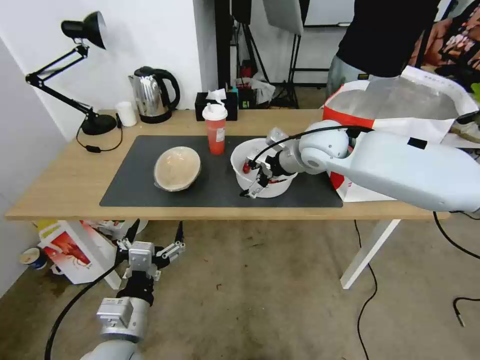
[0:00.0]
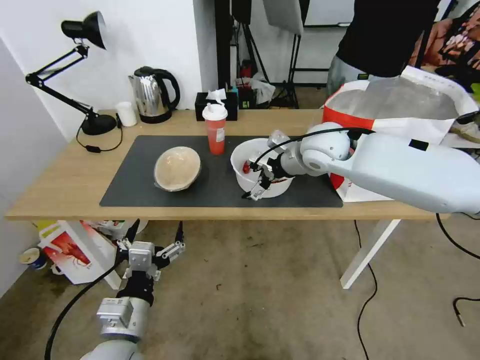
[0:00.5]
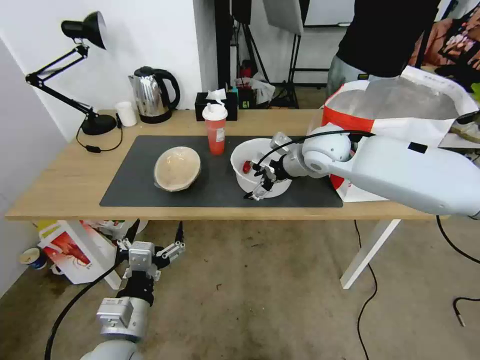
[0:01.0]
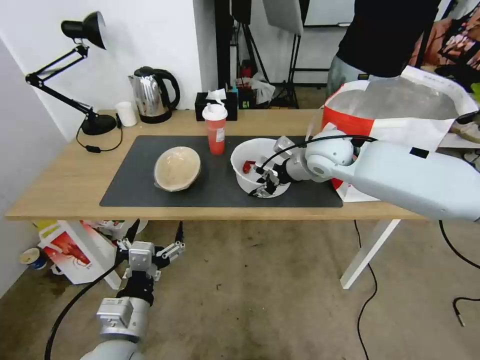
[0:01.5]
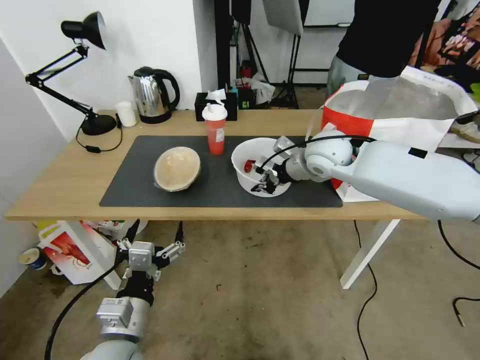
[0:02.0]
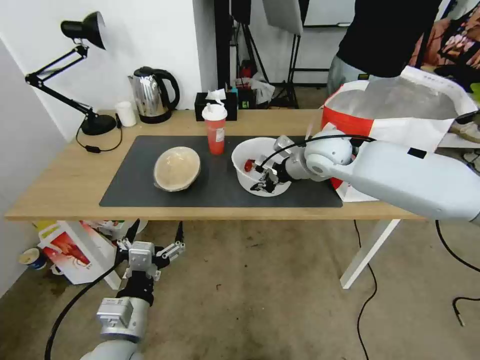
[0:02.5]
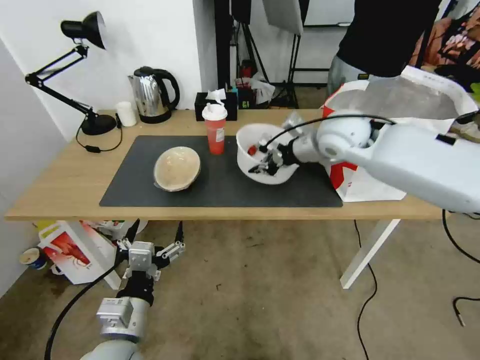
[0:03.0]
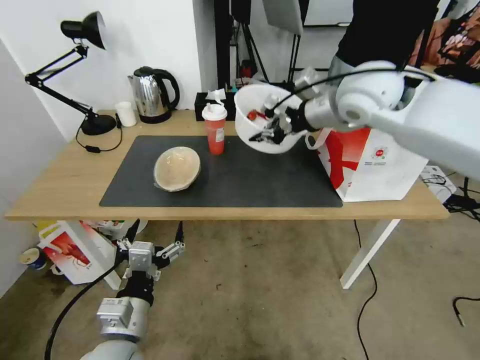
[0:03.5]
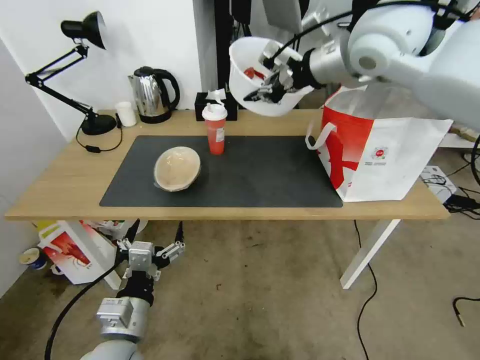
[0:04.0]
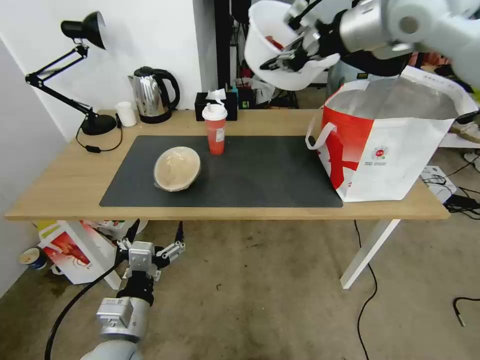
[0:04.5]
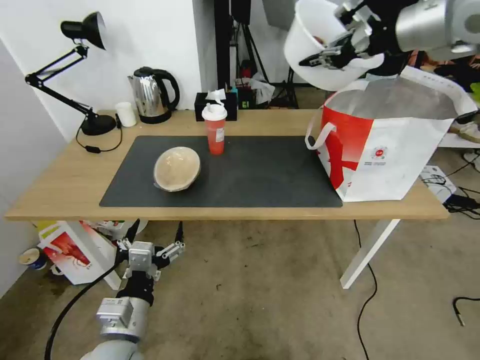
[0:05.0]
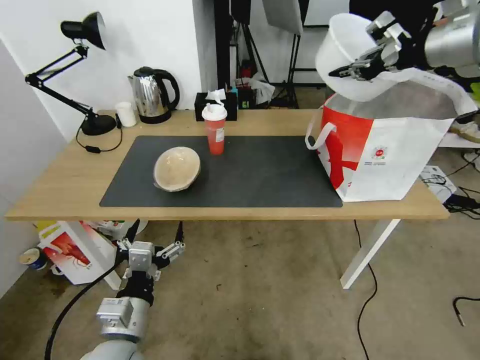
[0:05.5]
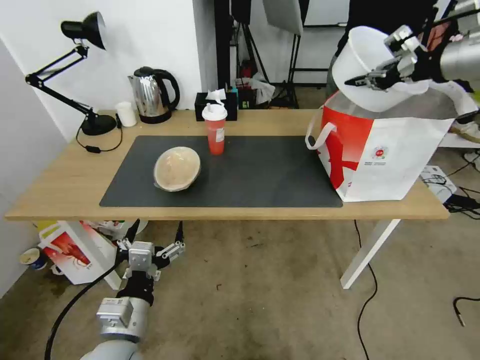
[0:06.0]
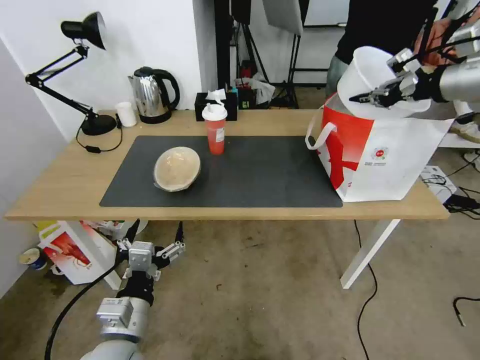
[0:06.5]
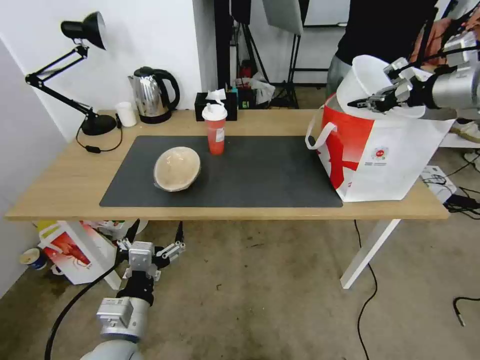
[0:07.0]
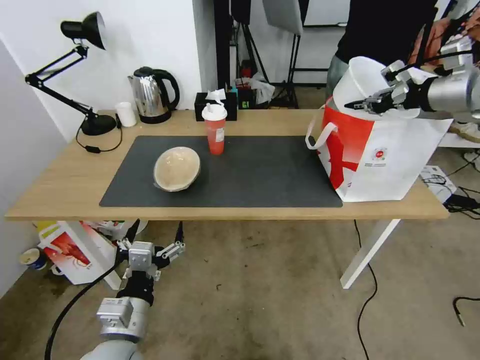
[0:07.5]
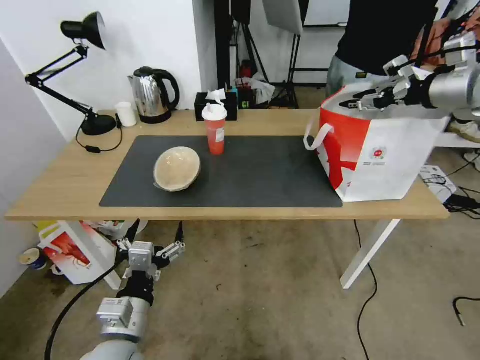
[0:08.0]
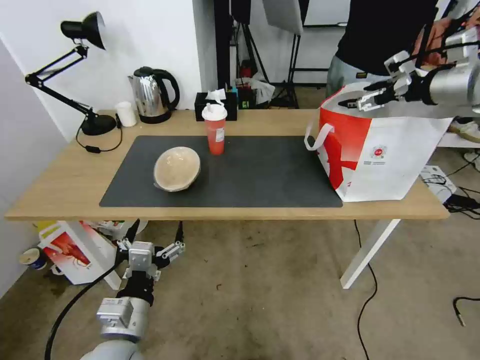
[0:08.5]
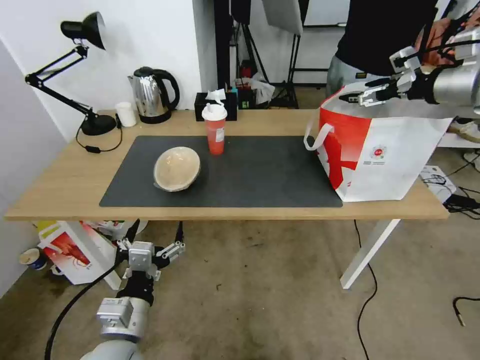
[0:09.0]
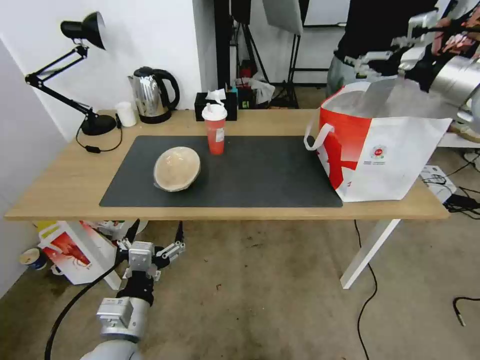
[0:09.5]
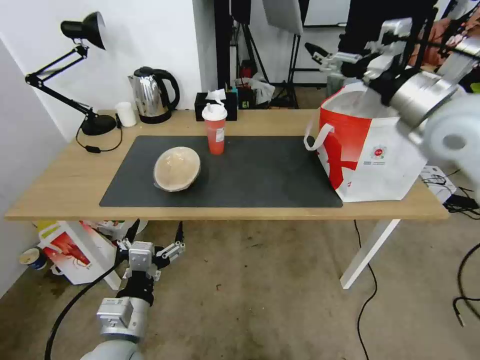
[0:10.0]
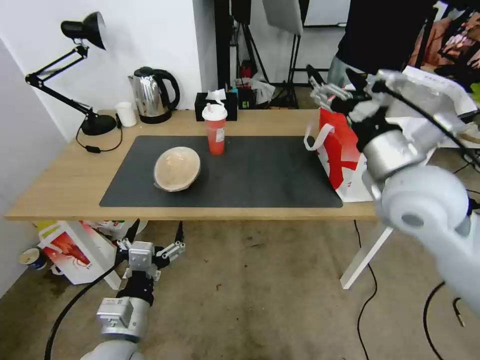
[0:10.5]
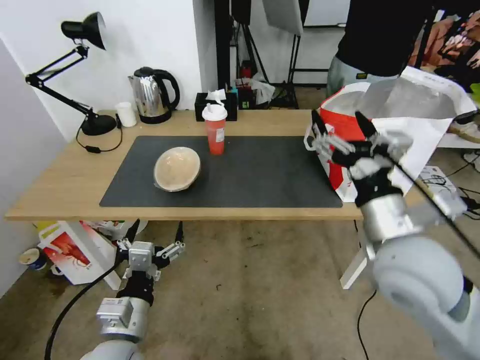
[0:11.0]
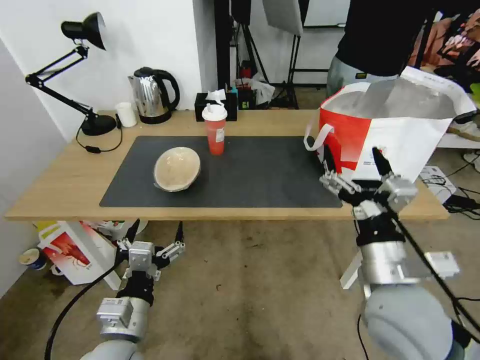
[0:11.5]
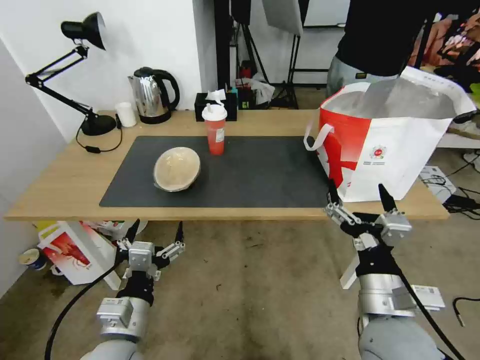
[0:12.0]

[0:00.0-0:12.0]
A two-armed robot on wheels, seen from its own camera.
Task of the whole recording: Pick up the trash from the table and place it into the takeout bag.
0.0 to 2.0 s: The right gripper closes its fingers.
2.0 to 4.0 s: The right gripper goes approximately 25 cm upward.
4.0 to 6.0 s: The right gripper goes about 20 cm to the right.
6.0 to 8.0 s: The right gripper goes roughly 5 cm downward, and opens up.
8.0 to 10.0 s: The right gripper heads to the left and backward, covering about 15 cm, and opens its fingers.
10.0 to 12.0 s: The right gripper travels backward, downward and to the left by approximately 35 cm.

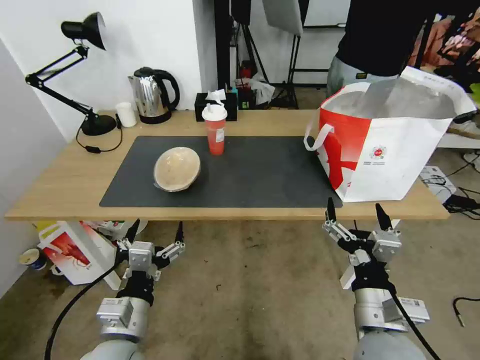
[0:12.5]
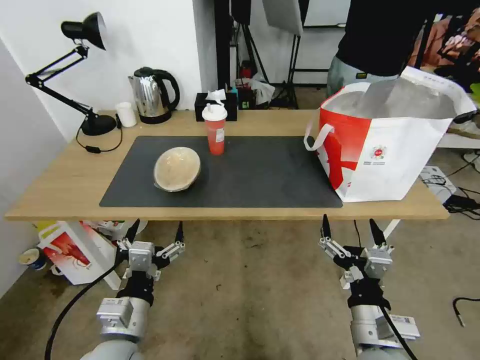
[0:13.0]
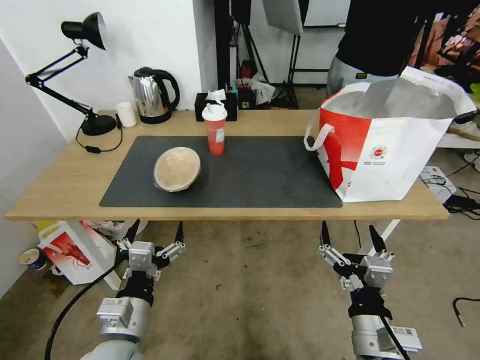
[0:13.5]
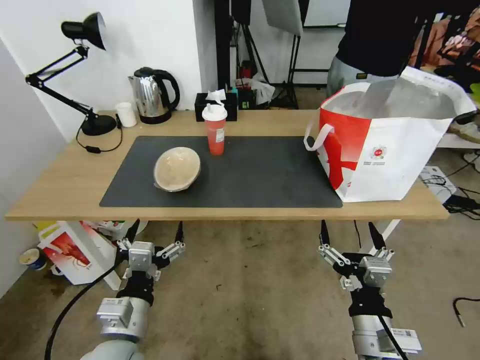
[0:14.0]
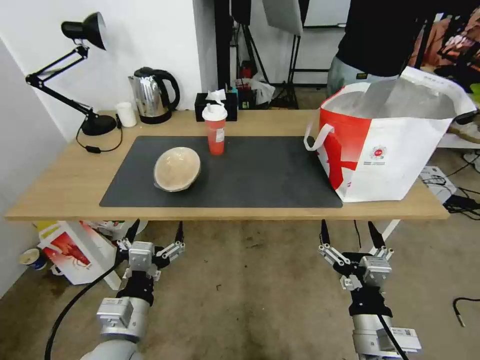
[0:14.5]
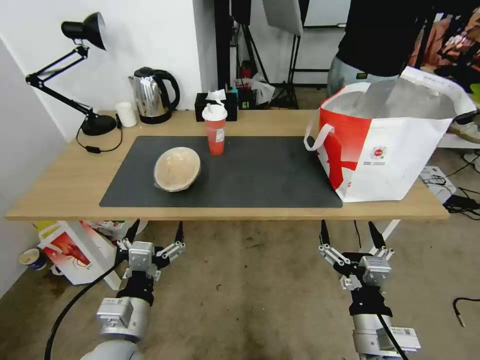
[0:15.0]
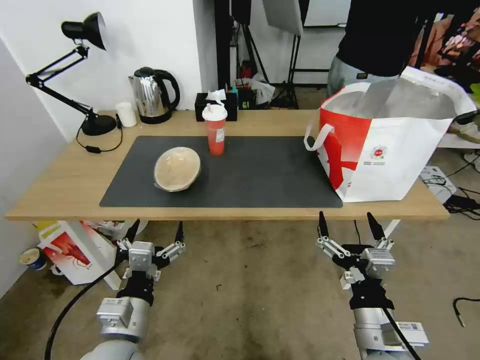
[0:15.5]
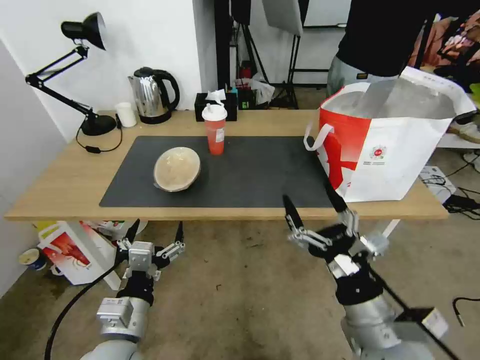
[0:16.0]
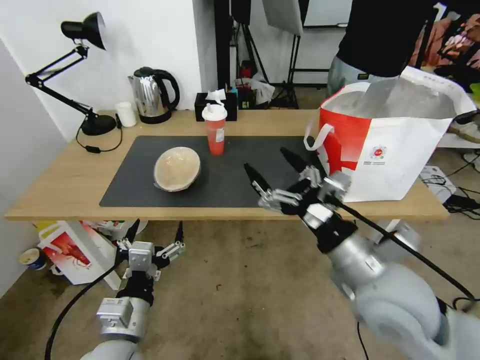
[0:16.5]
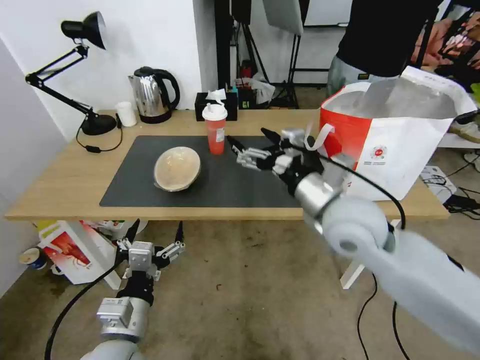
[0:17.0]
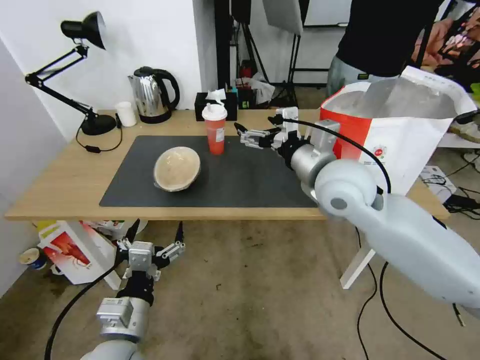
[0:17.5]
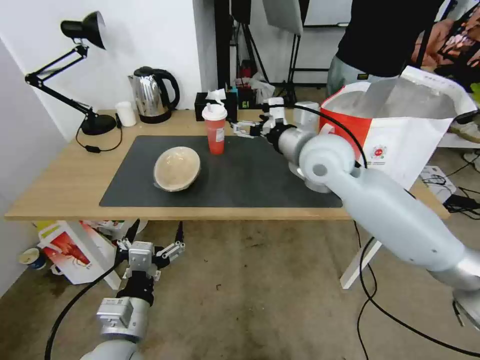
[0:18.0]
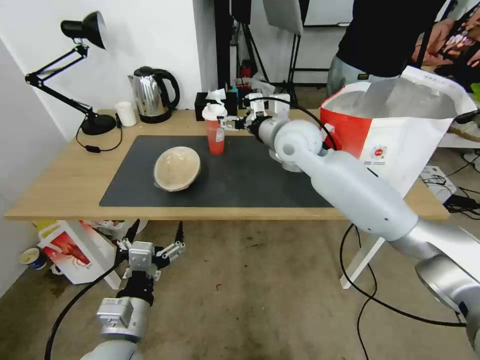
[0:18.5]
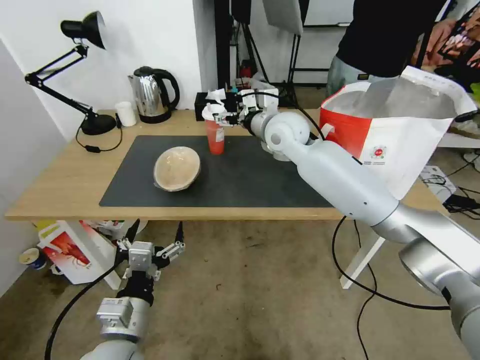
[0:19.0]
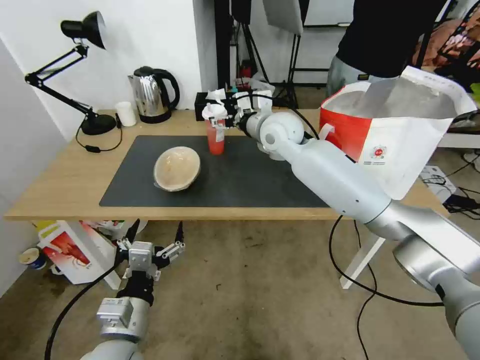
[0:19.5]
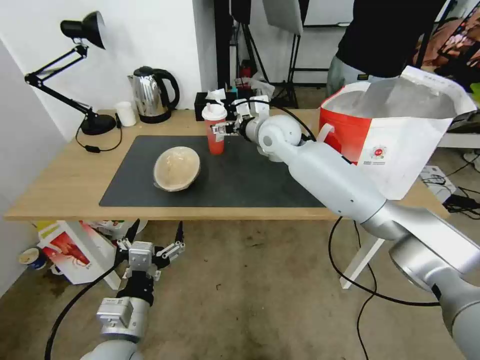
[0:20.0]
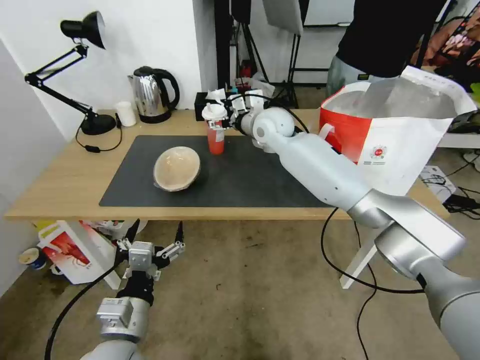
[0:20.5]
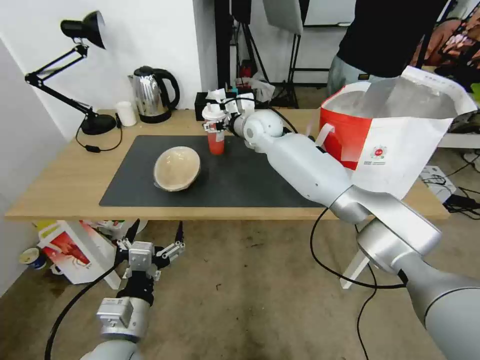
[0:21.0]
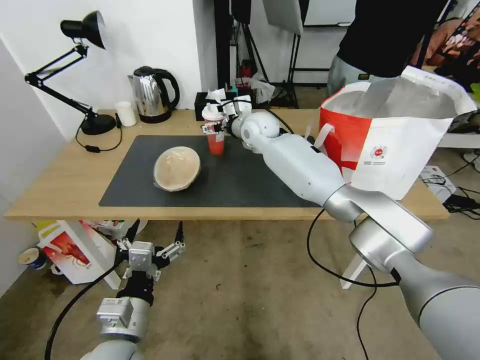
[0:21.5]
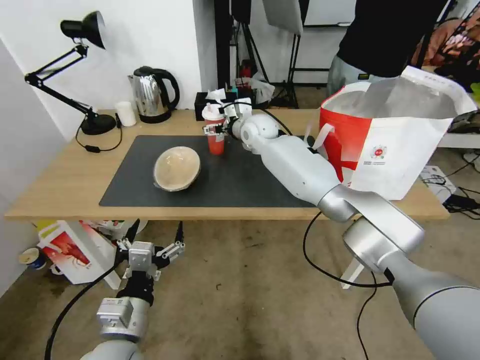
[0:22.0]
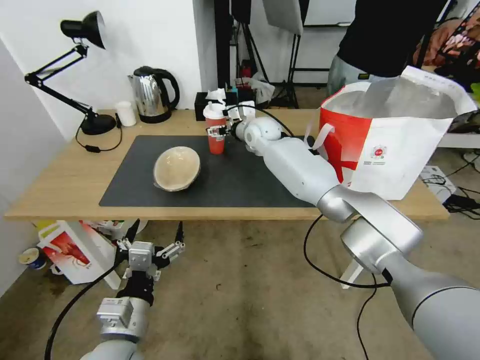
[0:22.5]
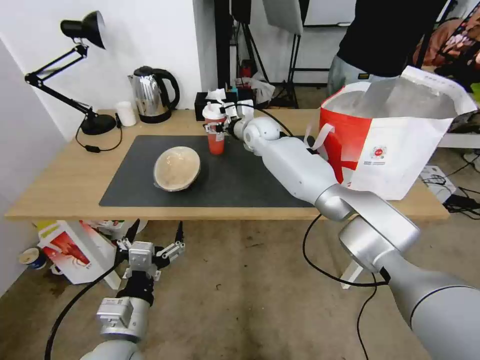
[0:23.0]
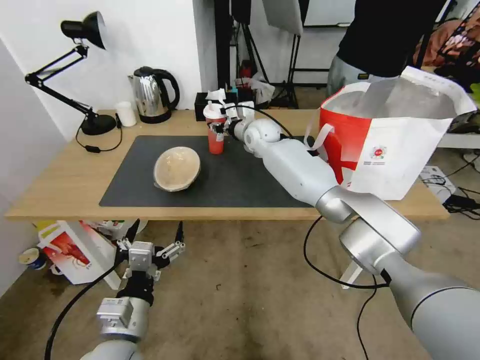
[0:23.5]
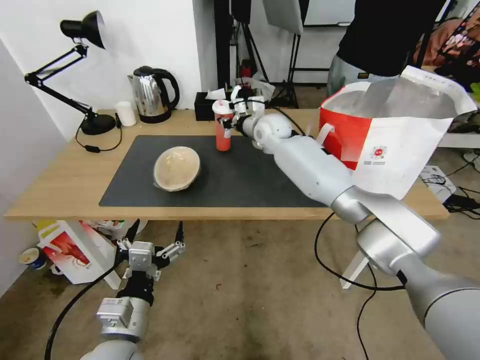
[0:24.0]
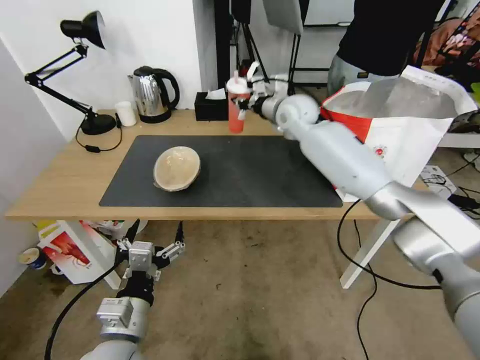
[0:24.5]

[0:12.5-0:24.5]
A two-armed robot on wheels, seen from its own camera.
Task of the whole recording: Pick up the trash from the table and place it into the takeout bag.
12.5 to 14.5 s: There are only small adjustments of the grippers.
14.5 to 16.5 s: The right gripper goes about 10 cm upward.
16.5 to 18.5 s: The right gripper goes some 35 cm forward.
18.5 to 20.5 s: The right gripper heads forward, covering approximately 10 cm.
20.5 to 22.5 s: The right gripper goes roughly 10 cm downward and forward.
22.5 to 24.5 s: The right gripper goes approximately 10 cm to the right and upward, and closes its fingers.

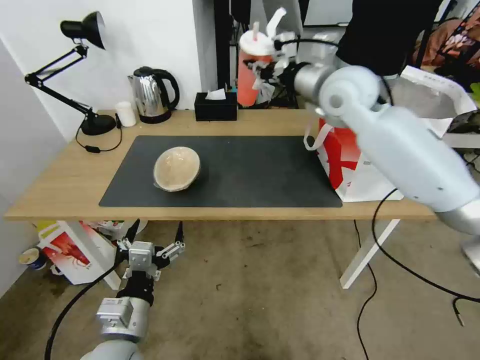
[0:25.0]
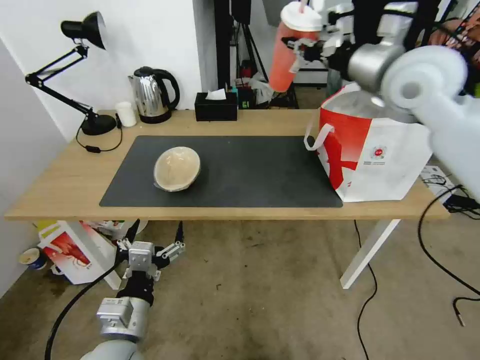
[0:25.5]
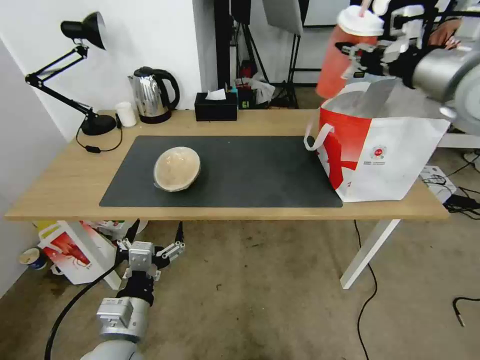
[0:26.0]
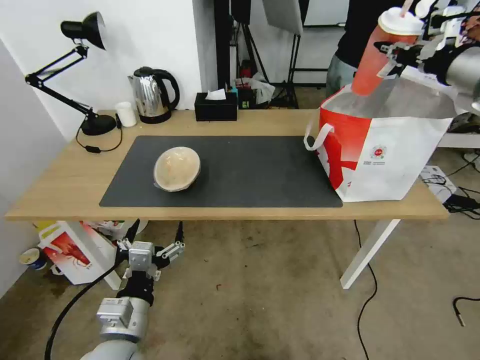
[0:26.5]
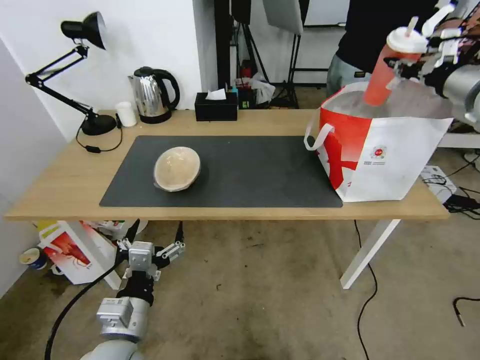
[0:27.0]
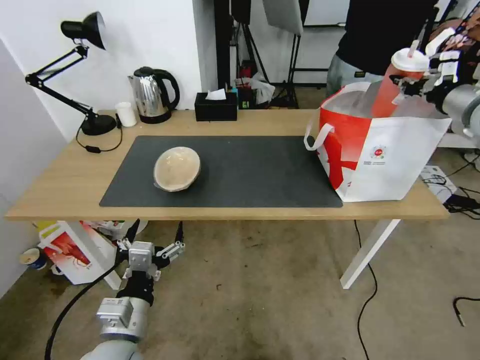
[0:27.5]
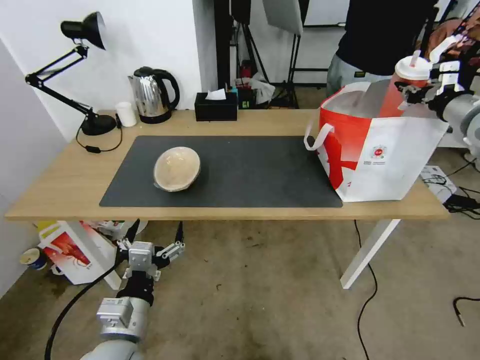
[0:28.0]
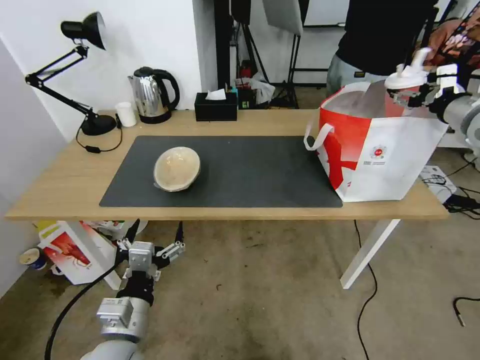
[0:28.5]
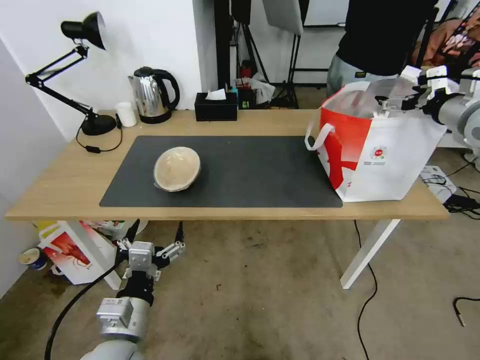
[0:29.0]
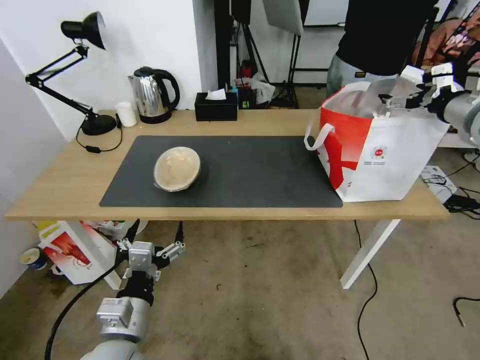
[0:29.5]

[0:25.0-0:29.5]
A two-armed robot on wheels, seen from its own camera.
Task of the whole recording: Pick up the trash from the table and place it into the takeout bag.
25.0 to 27.0 s: The right gripper heads to the right, covering approximately 25 cm.
27.0 to 29.5 s: The right gripper opens up.
